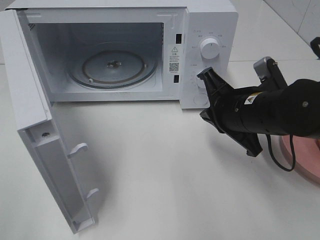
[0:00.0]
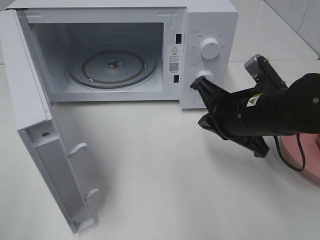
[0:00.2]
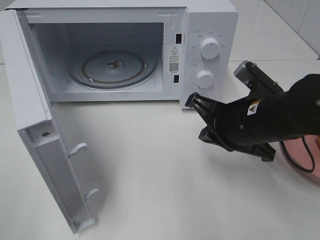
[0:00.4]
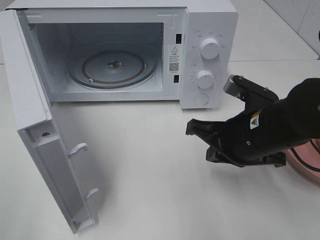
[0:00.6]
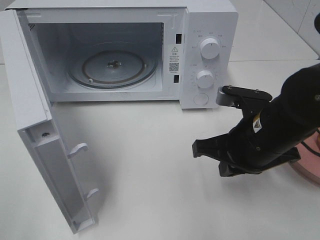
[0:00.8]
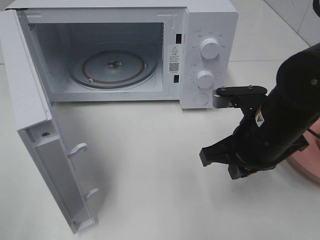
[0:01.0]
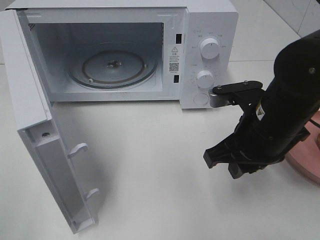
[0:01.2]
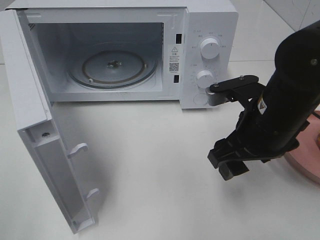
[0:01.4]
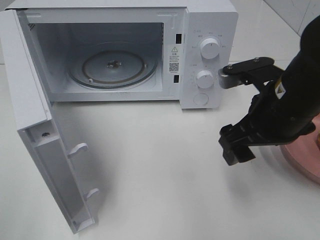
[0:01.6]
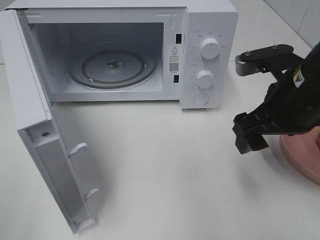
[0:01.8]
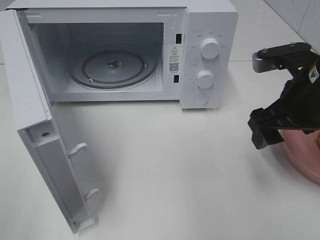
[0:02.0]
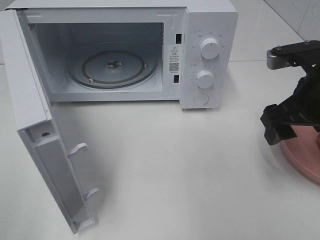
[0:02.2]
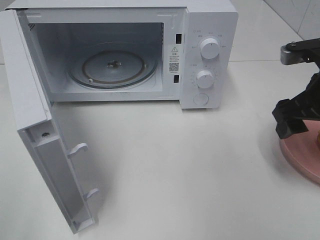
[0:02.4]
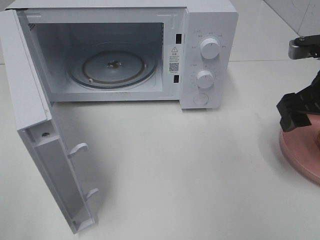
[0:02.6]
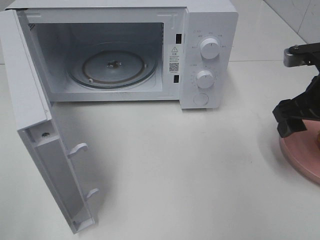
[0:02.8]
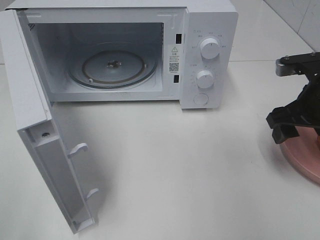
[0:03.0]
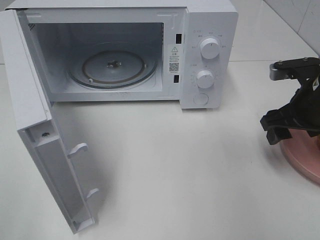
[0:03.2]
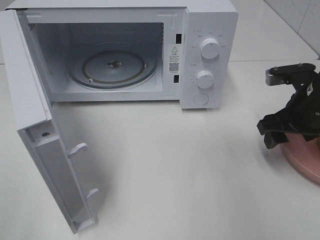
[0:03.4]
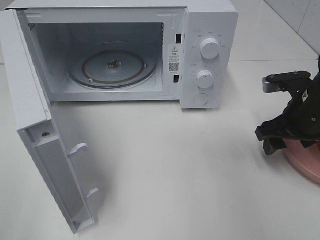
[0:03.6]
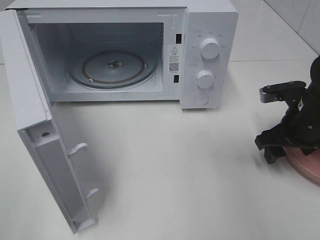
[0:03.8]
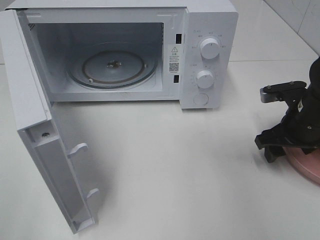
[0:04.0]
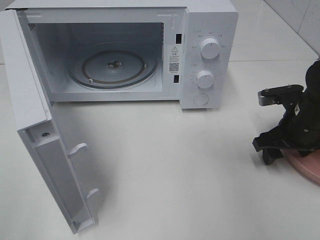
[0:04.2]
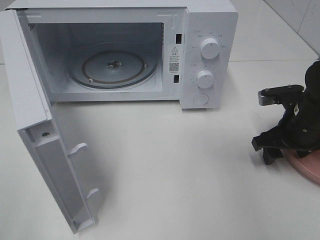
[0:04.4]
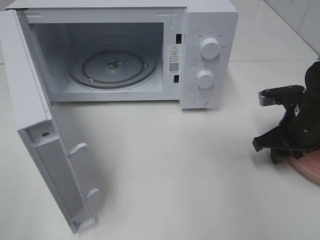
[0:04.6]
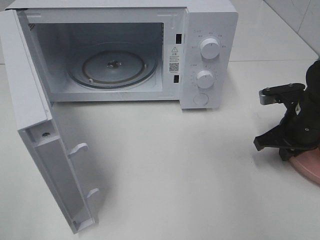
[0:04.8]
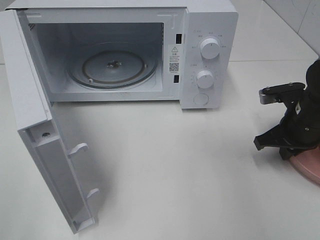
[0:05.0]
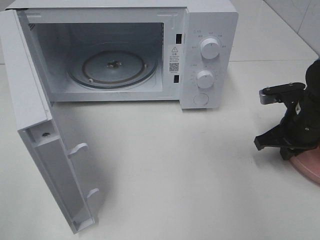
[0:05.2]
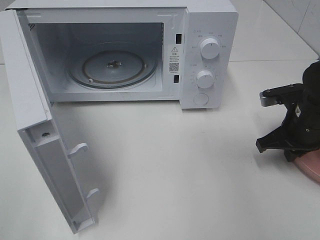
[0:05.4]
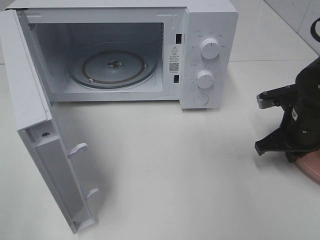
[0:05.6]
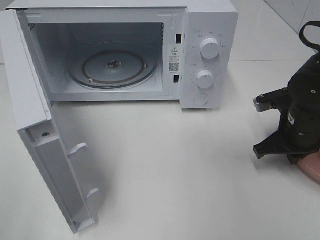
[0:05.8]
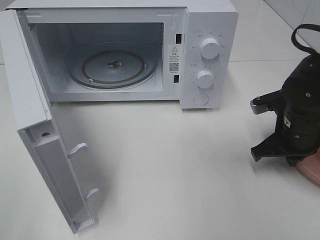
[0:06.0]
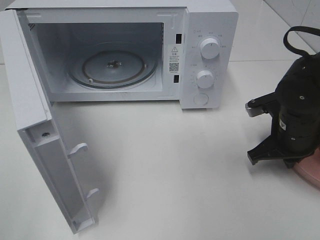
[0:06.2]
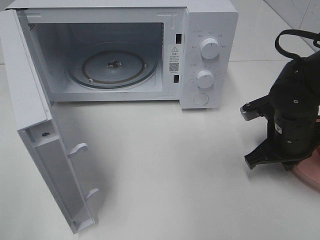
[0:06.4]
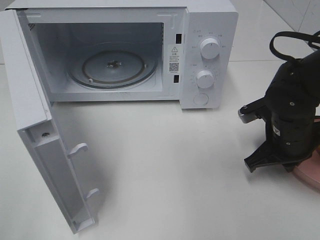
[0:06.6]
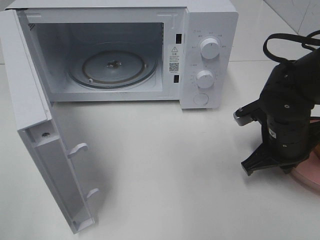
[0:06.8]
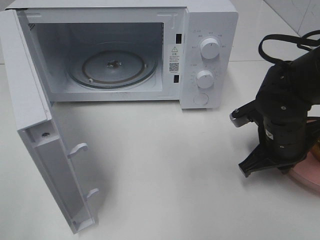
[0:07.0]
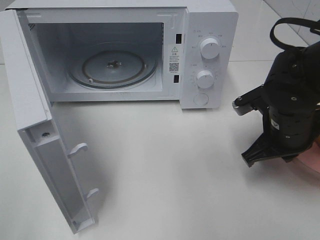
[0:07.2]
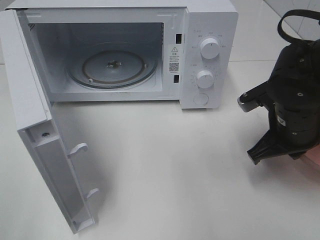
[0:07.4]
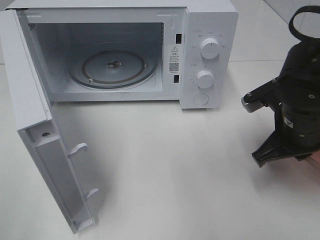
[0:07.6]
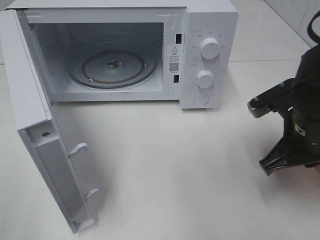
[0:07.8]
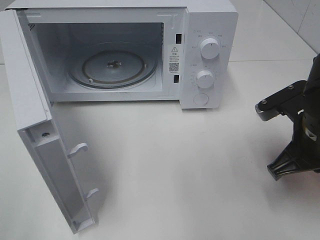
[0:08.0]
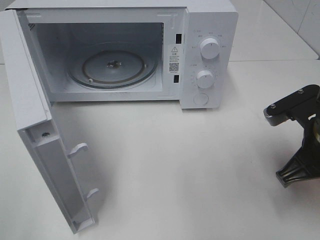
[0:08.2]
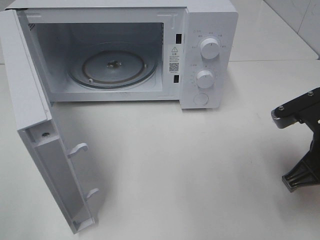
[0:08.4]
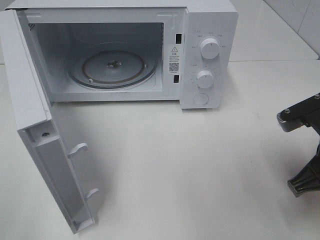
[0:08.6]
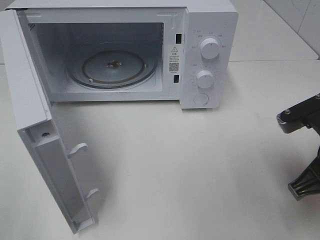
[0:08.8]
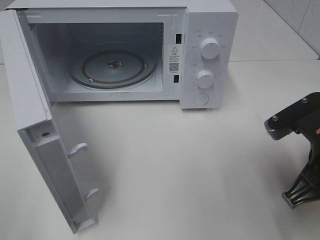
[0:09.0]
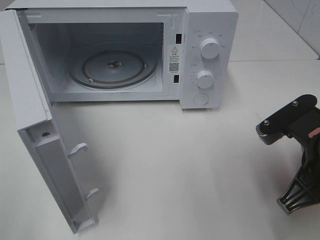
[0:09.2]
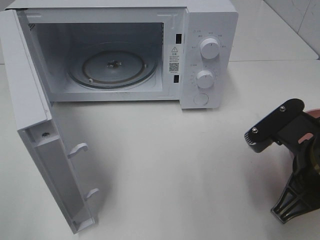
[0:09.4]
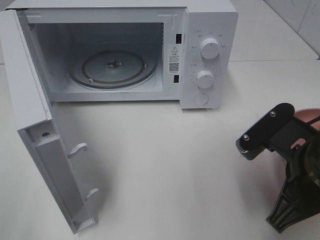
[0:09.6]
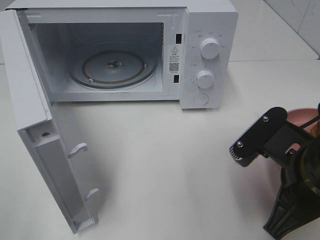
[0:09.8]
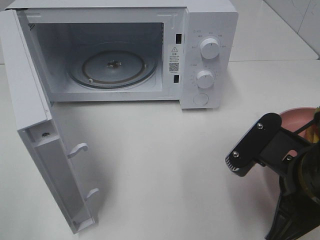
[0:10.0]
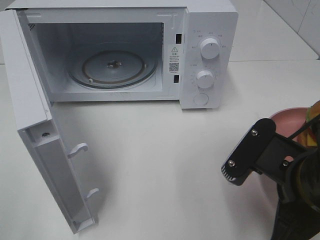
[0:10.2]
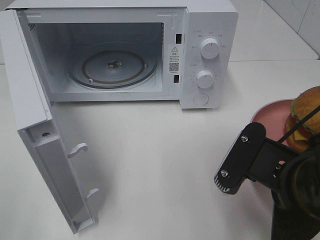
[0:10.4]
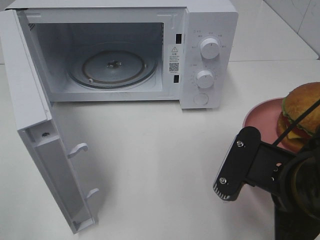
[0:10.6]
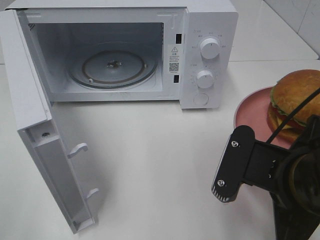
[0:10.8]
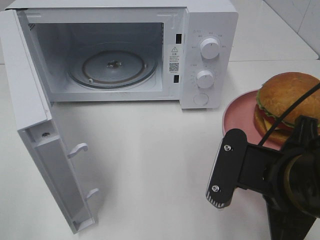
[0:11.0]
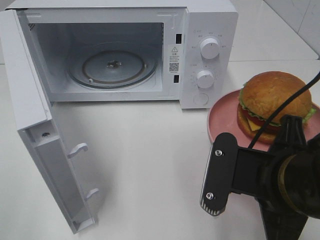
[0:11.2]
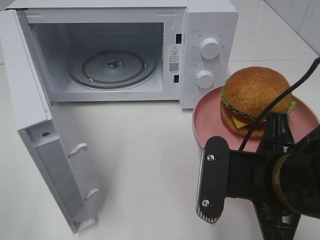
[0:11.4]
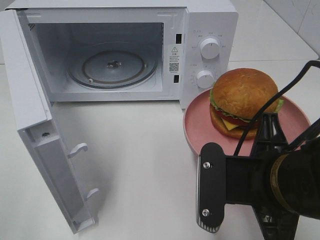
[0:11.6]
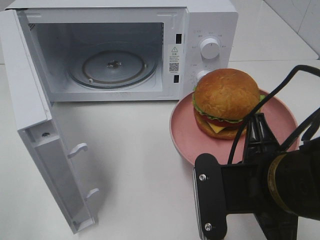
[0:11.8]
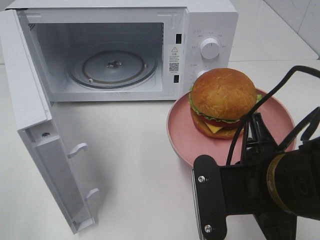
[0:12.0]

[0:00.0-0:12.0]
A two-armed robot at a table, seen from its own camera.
Task of the whole recording: Heat the burger.
Step, 0:00.0 to 0:05.4: Right hand: grab the plate with the hamburger.
0:00.0 to 0:01.6: The right gripper moves approximately 5 cm, and opens up.
0:01.6 to 0:03.0: The right gripper travels to the right by some 10 cm.
0:03.0 to 0:04.4: The right gripper moves downward, roughly 5 cm.
0:04.4 to 0:06.0: The right gripper closes up.
0:06.0 to 0:07.6: The right gripper changes place by about 5 cm.
0:07.6 to 0:09.0: The right gripper shifts roughly 10 cm backward.
0:09.0 to 0:10.4: The right gripper shifts some 10 cm to the left and backward.

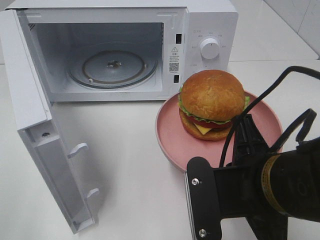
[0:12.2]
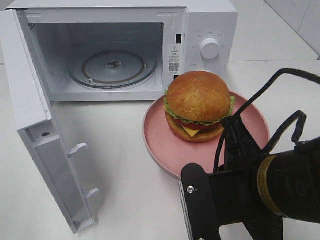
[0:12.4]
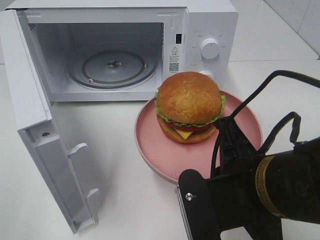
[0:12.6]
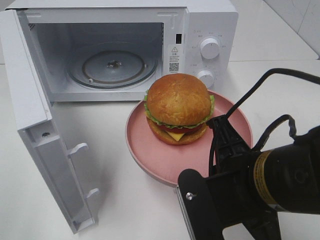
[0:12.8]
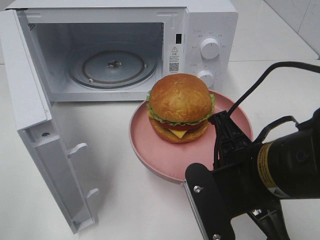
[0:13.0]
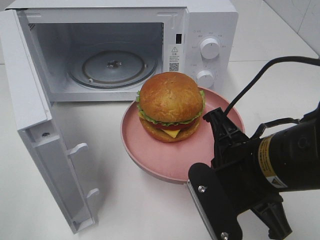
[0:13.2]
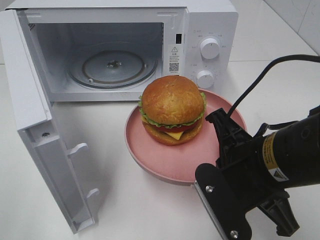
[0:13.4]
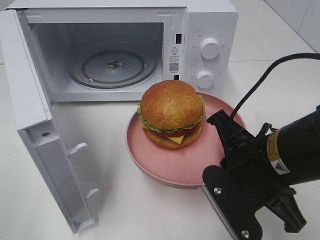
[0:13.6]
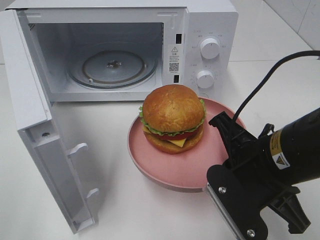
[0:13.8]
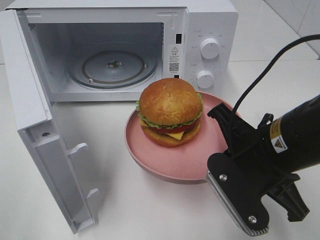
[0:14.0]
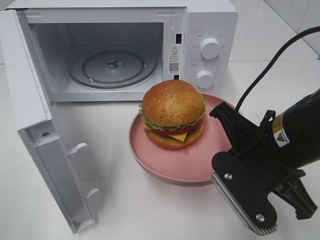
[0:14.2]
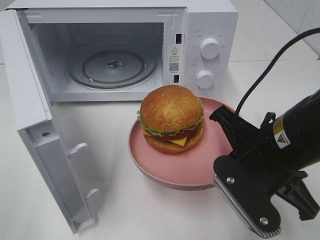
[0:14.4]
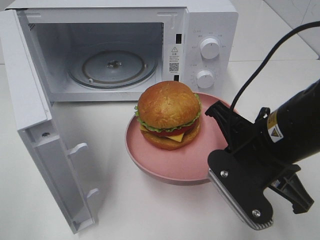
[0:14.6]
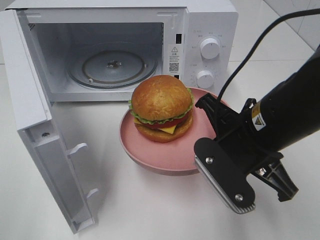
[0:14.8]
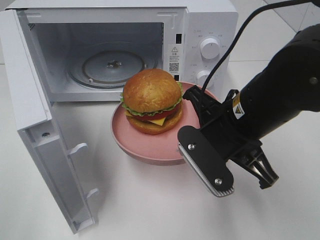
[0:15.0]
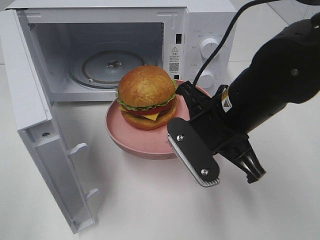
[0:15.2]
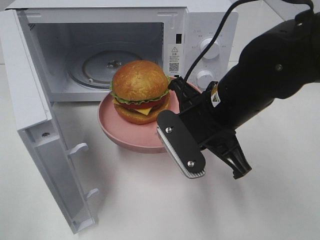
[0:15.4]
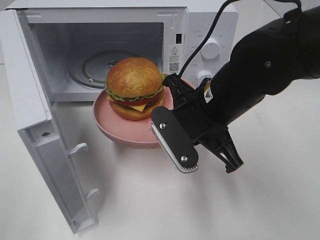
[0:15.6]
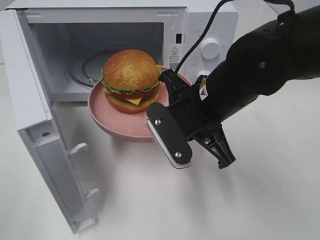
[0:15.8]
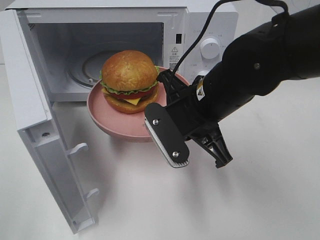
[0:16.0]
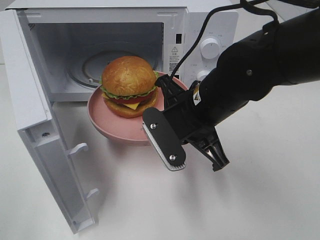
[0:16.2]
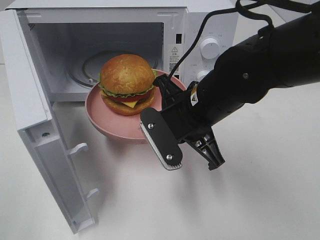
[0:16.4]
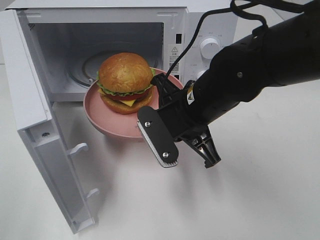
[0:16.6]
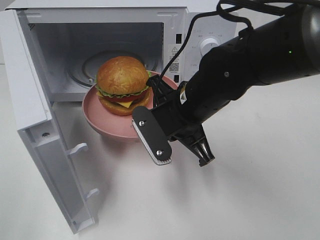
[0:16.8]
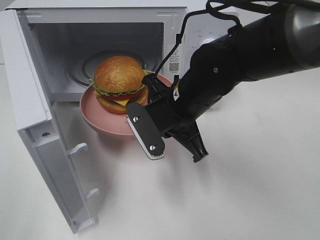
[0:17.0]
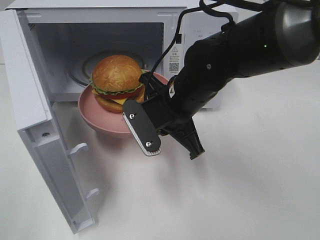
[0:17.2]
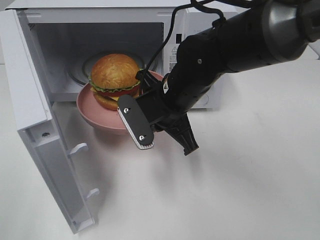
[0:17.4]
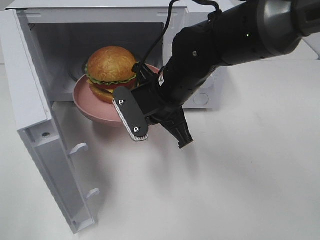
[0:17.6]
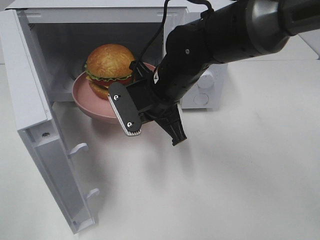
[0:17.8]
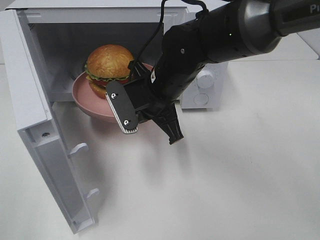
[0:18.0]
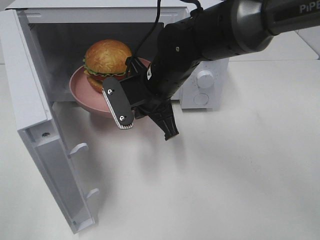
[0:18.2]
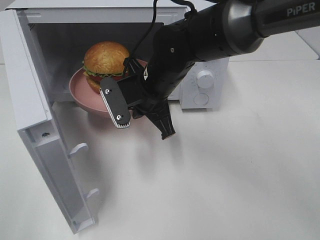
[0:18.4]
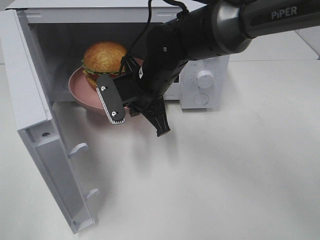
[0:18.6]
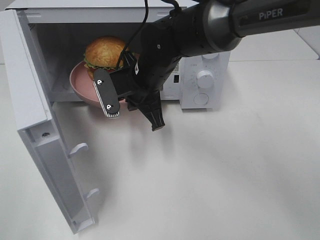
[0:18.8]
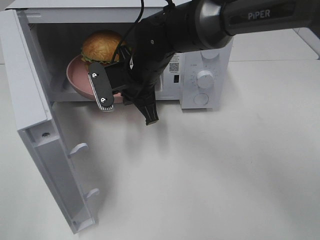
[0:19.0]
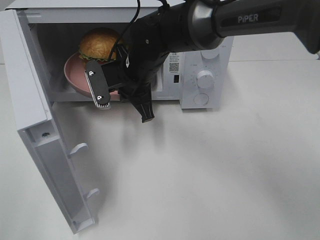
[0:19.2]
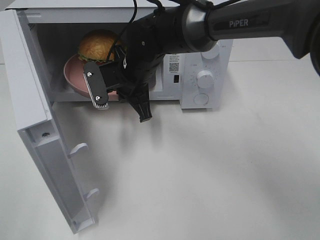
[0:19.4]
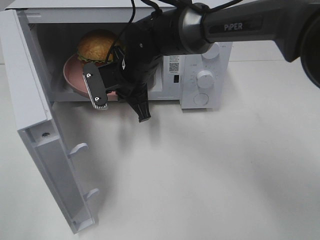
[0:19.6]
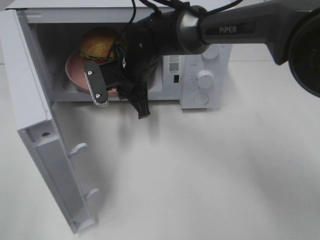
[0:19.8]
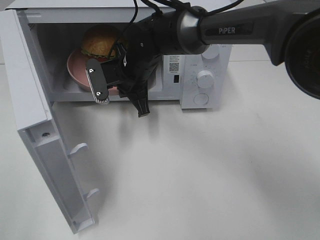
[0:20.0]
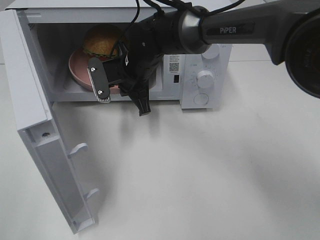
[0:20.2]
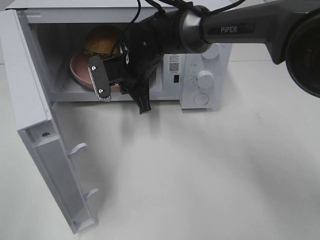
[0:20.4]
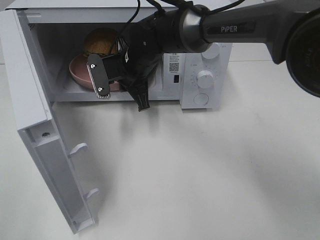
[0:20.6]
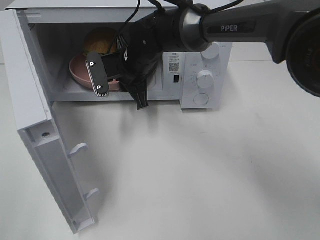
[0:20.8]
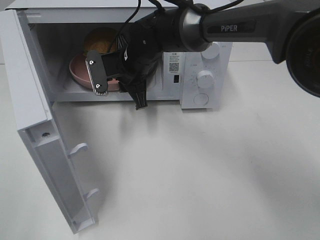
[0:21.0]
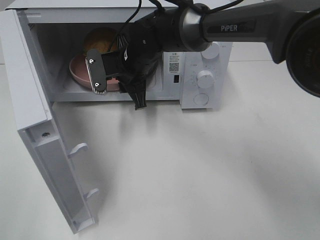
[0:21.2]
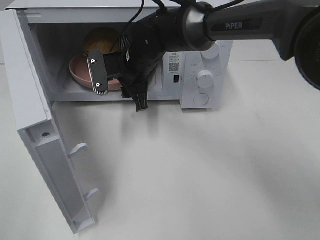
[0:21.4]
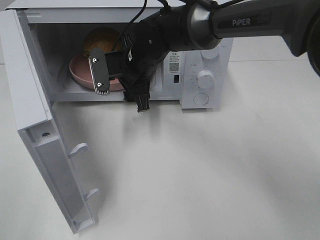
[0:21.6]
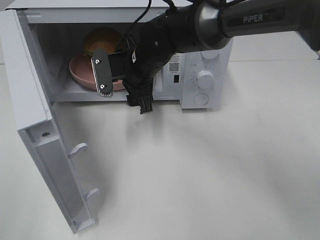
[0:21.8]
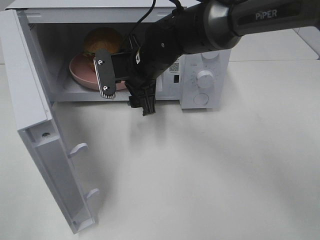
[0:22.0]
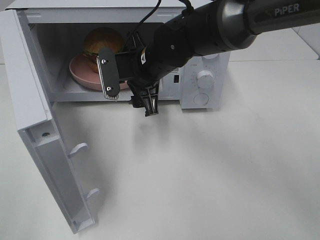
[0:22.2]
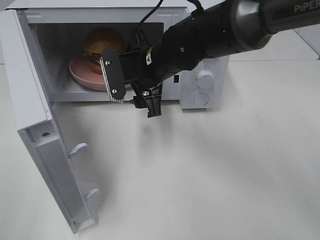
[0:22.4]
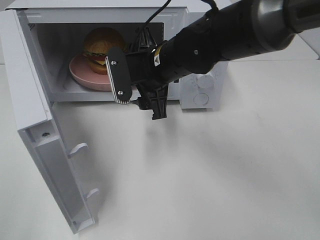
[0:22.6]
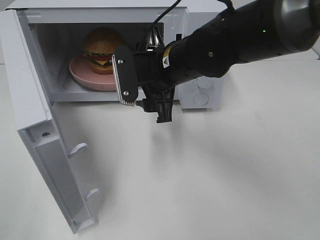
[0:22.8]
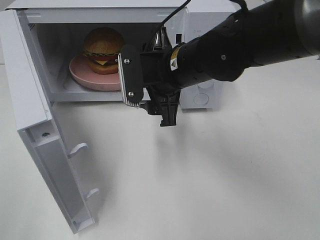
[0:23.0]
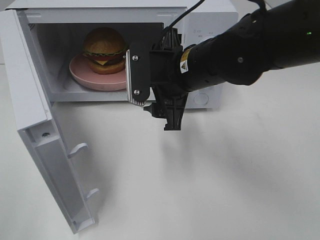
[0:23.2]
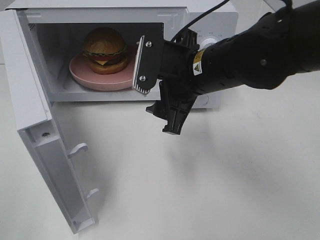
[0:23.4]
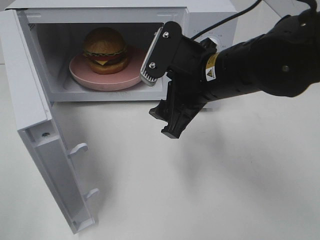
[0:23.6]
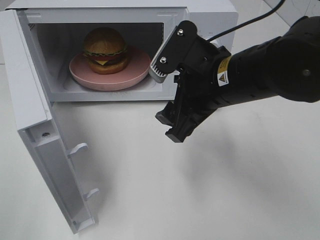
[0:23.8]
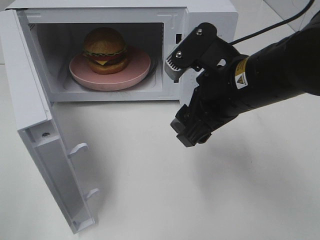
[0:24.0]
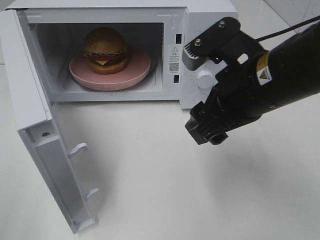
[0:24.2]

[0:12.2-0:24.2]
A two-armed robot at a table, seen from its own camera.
Task of the whole recording: Heat the burger.
Step, 0:12.2 to 0:20.8: Right hand: place the plate in the microwave.
0:13.8 to 0:15.2: The right gripper moves forward, about 5 cm.
0:15.2 to 0:16.6: The right gripper ends up about 5 cm from where it was.
0:16.6 to 0:18.2: The right gripper is displaced forward and to the left by approximately 10 cm.
0:18.2 to 0:19.8: The right gripper travels forward by some 5 cm.
0:19.8 to 0:21.2: The right gripper opens its fingers.
0:21.2 to 0:22.6: The right gripper is displaced backward and to the right by about 10 cm, and opens up.
0:22.6 to 0:24.2: The right gripper shifts some 15 cm backward, to the right and upward.
